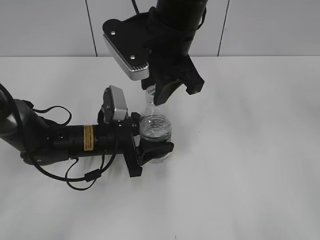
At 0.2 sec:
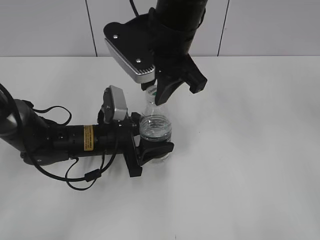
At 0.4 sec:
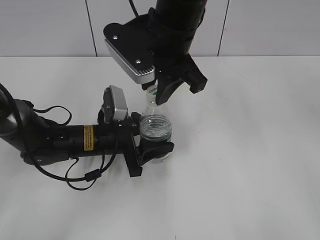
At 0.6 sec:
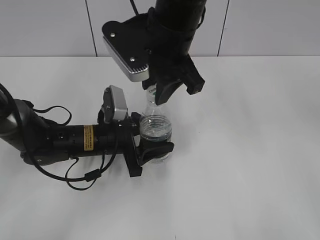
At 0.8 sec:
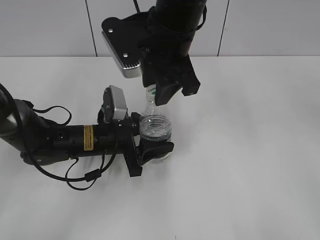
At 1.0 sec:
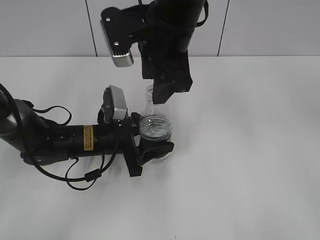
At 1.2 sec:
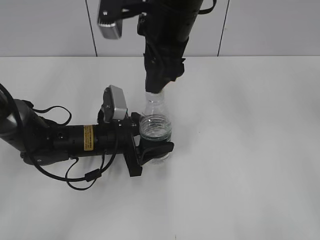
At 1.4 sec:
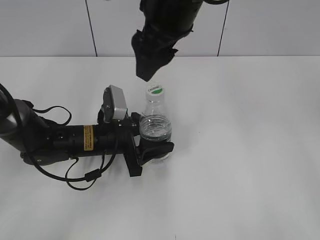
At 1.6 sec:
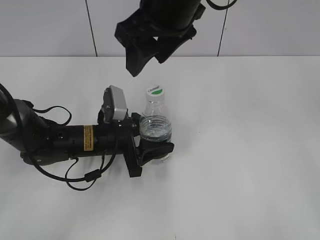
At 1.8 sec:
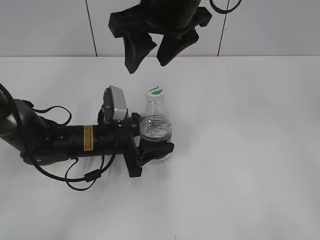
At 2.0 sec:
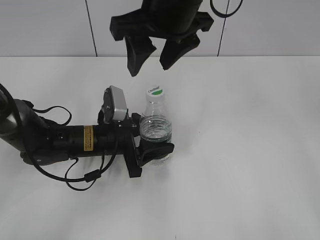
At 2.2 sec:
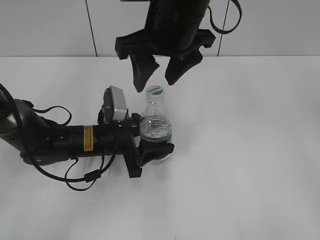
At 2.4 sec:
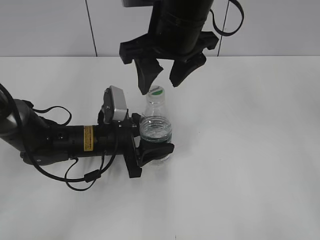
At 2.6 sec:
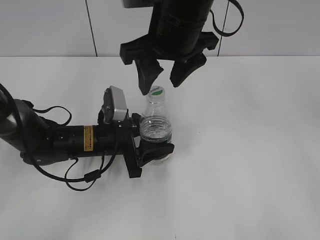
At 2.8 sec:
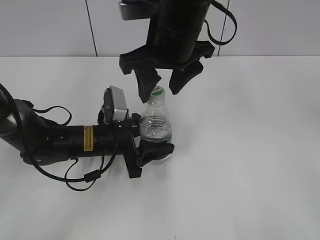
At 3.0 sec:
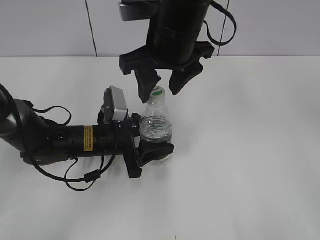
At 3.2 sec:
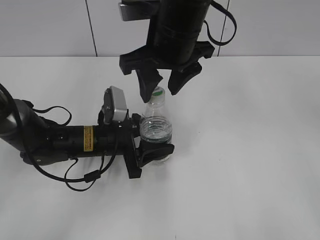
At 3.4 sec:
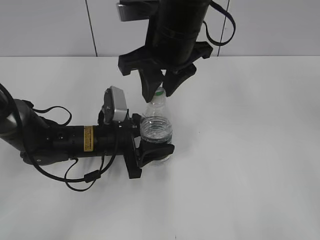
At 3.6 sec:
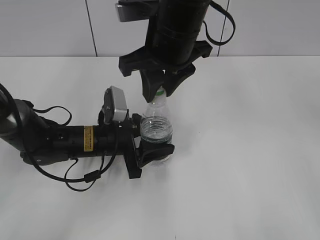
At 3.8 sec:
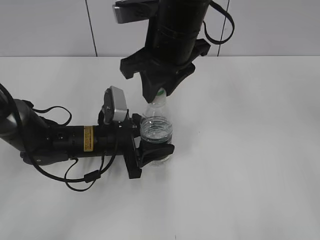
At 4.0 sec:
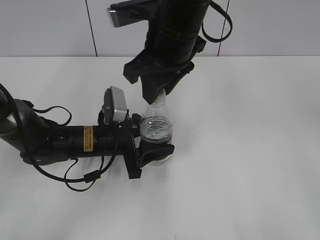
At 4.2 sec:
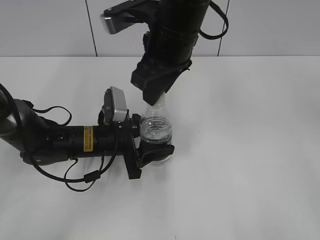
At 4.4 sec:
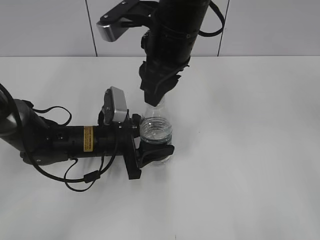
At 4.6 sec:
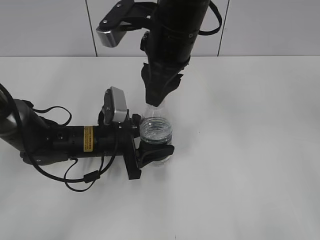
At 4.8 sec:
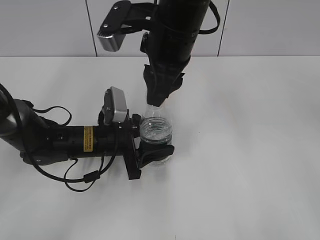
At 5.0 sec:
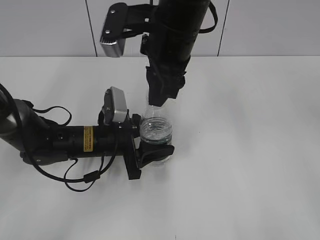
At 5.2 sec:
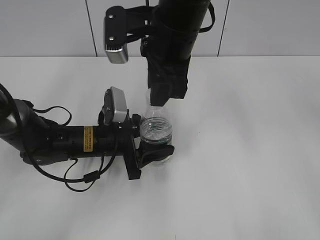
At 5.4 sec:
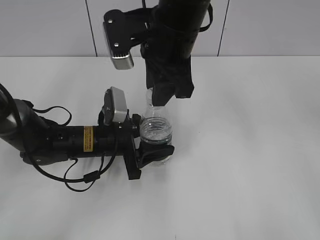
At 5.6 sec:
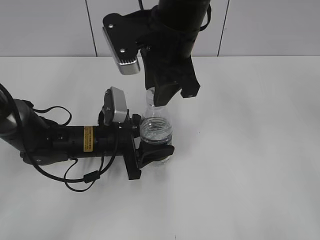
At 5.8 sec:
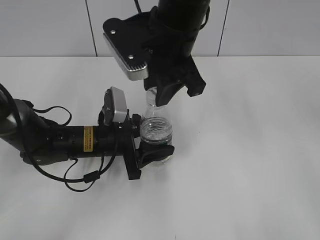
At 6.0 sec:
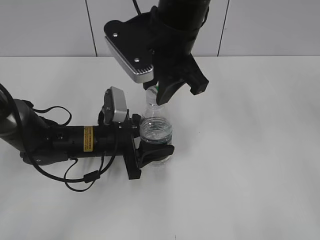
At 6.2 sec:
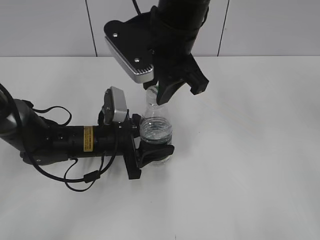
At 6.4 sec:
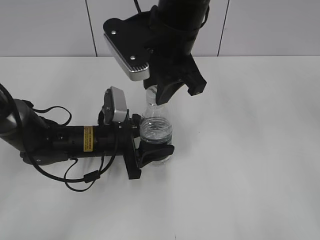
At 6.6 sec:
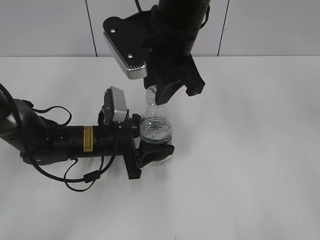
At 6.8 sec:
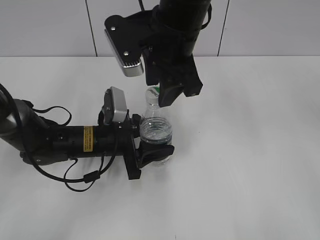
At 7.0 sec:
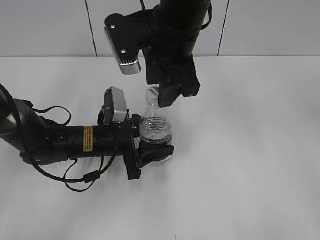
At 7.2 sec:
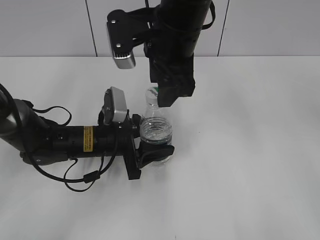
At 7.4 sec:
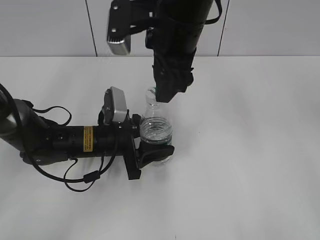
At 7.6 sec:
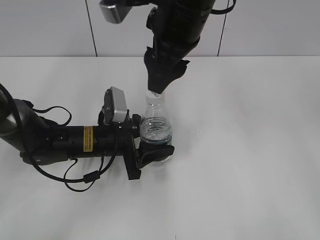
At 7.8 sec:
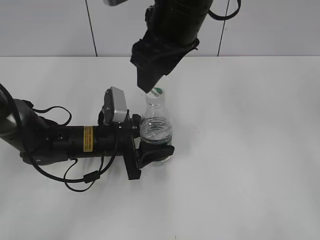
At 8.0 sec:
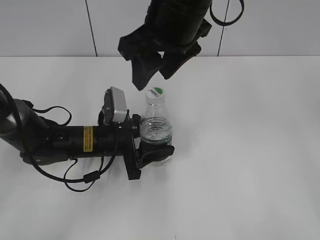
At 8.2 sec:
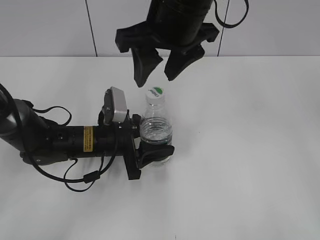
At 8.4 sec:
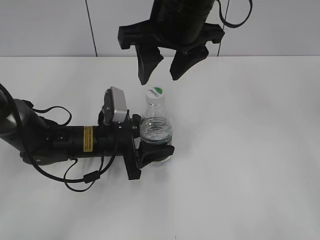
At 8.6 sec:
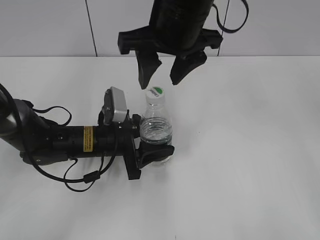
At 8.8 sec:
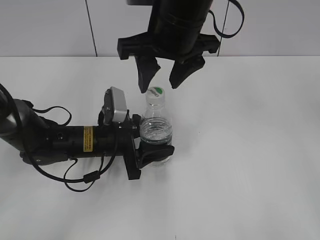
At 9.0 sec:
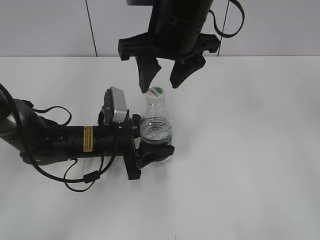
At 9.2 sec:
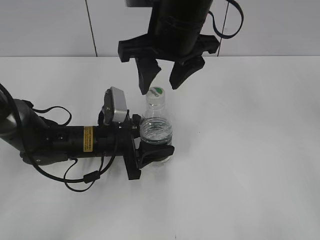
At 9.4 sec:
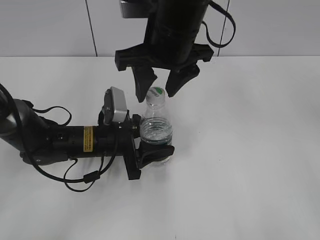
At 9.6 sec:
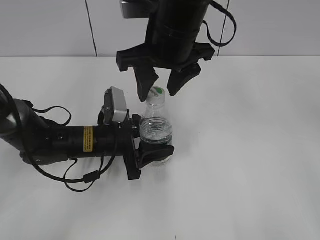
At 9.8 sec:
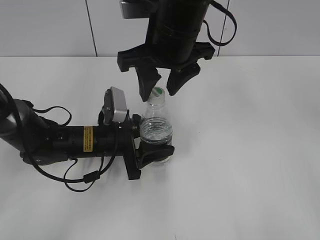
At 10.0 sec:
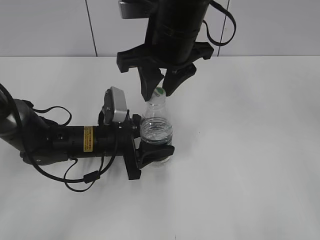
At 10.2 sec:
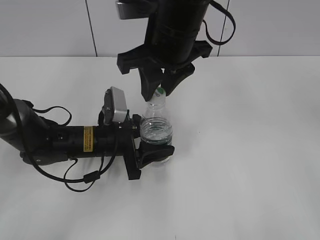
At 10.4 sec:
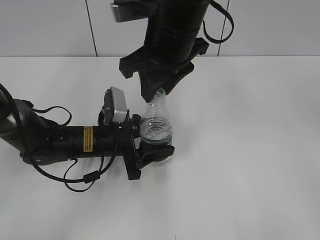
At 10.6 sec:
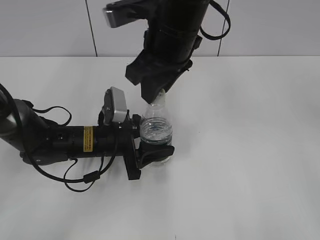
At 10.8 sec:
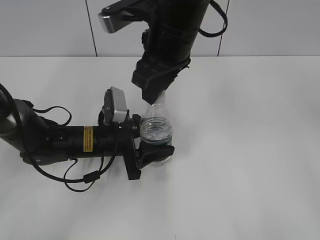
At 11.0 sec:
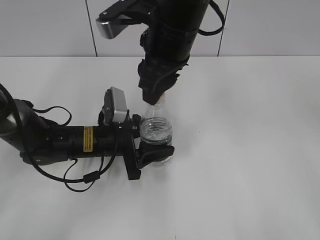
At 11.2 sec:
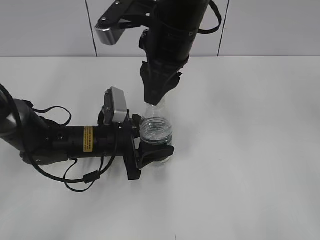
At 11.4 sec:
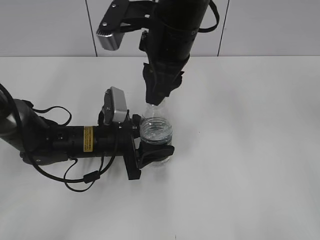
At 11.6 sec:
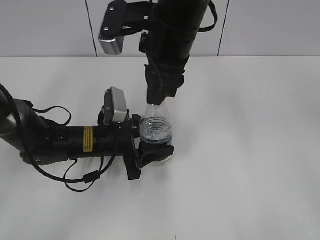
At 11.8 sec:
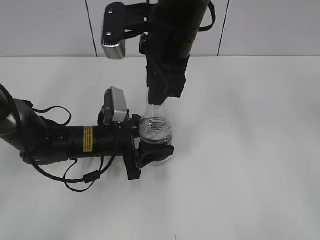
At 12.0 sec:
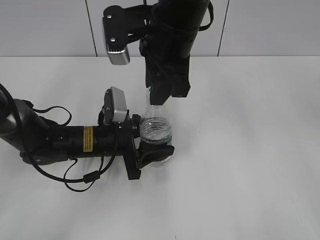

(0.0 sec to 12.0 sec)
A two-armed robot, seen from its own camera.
0.0 sec - 1.6 sec: The right gripper is displaced upward by roughly 5 cm, and opens up.
1.6 sec - 3.0 sec: The right gripper heads downward, covering some 5 cm.
3.0 sec - 4.4 sec: The right gripper closes its fingers.
6.0 sec - 7.6 sec: The right gripper opens its fingers.
9.0 sec - 10.4 sec: The right gripper closes its fingers.

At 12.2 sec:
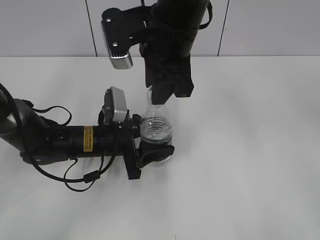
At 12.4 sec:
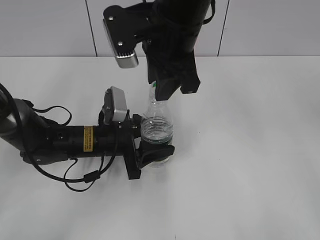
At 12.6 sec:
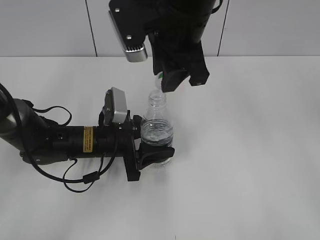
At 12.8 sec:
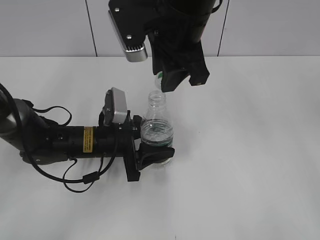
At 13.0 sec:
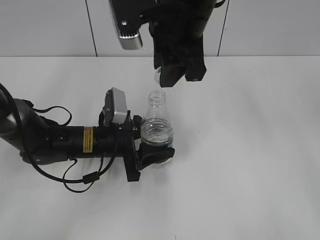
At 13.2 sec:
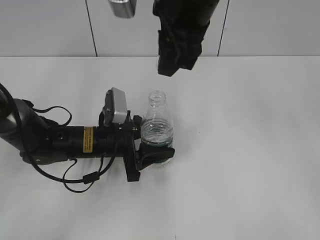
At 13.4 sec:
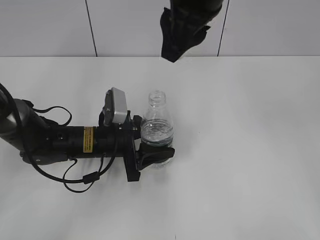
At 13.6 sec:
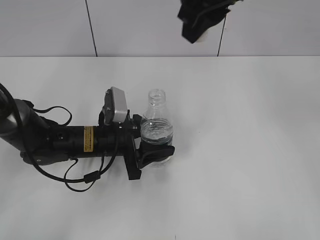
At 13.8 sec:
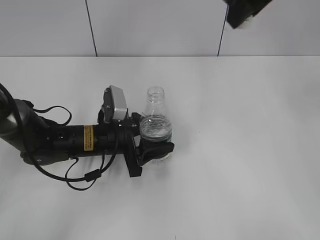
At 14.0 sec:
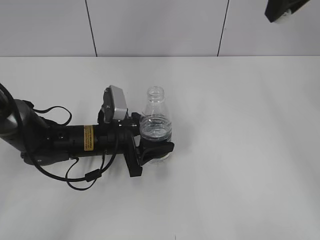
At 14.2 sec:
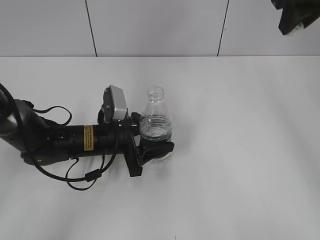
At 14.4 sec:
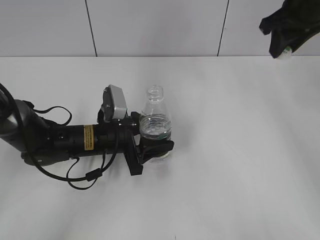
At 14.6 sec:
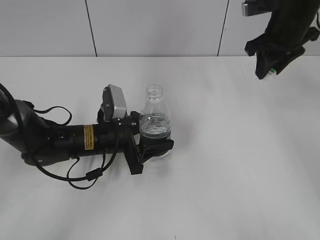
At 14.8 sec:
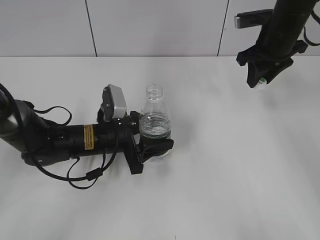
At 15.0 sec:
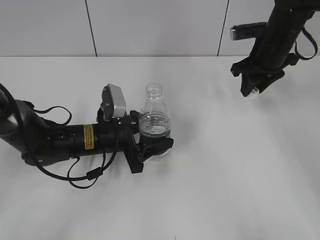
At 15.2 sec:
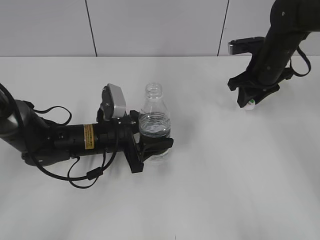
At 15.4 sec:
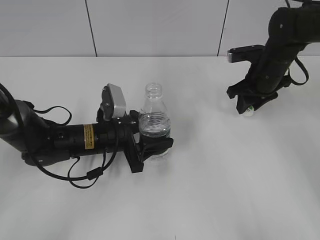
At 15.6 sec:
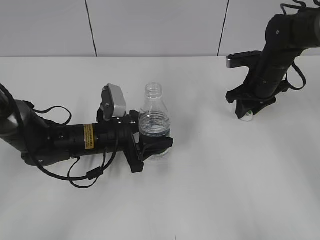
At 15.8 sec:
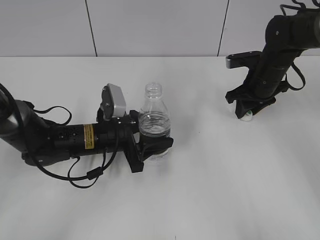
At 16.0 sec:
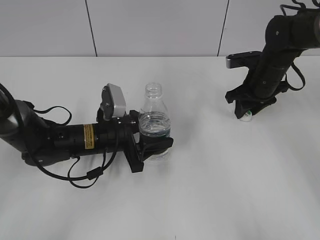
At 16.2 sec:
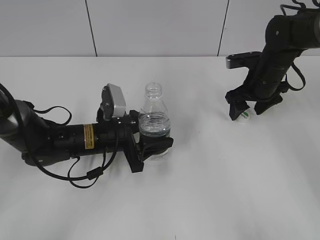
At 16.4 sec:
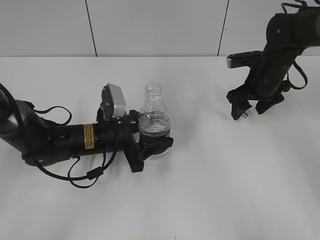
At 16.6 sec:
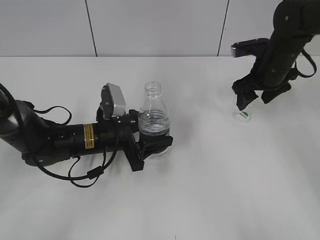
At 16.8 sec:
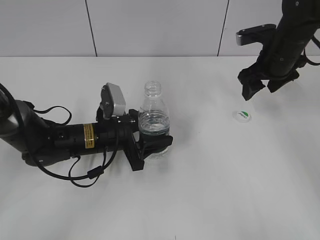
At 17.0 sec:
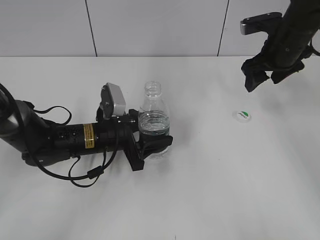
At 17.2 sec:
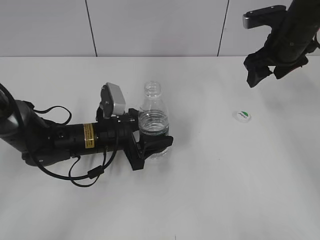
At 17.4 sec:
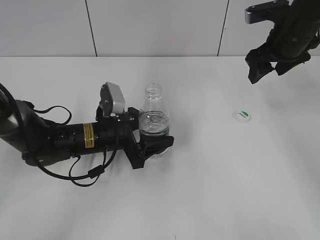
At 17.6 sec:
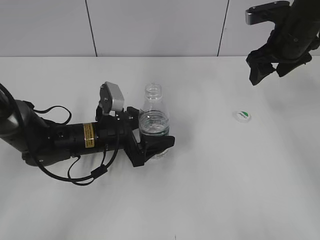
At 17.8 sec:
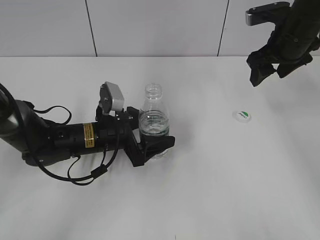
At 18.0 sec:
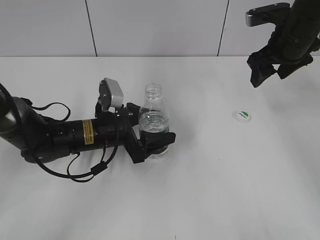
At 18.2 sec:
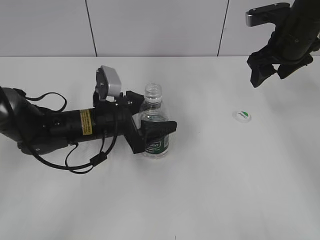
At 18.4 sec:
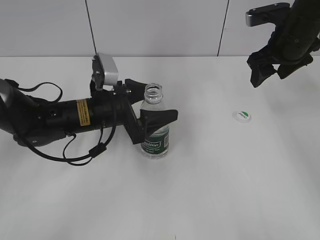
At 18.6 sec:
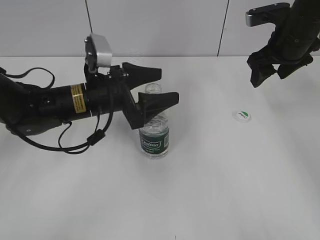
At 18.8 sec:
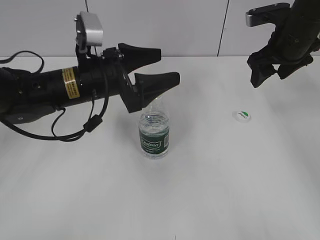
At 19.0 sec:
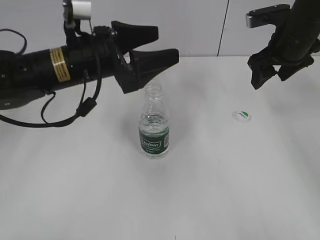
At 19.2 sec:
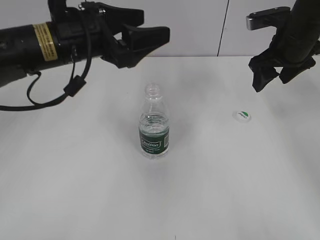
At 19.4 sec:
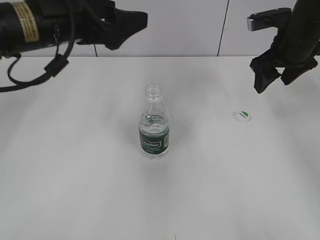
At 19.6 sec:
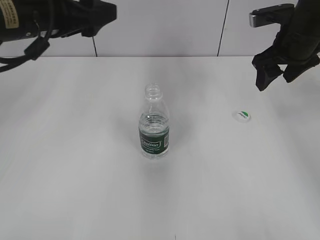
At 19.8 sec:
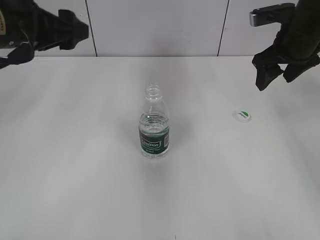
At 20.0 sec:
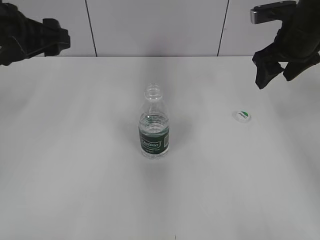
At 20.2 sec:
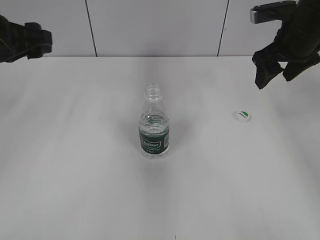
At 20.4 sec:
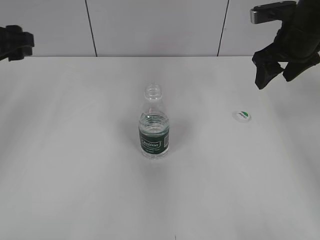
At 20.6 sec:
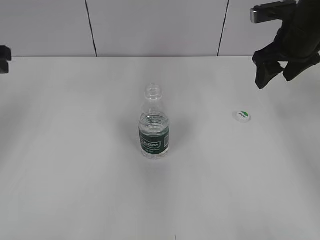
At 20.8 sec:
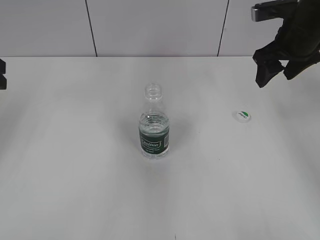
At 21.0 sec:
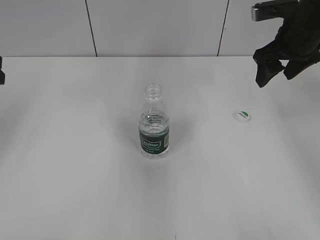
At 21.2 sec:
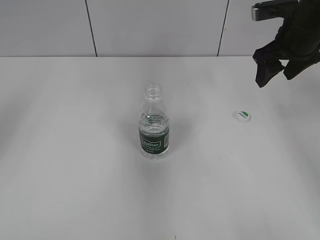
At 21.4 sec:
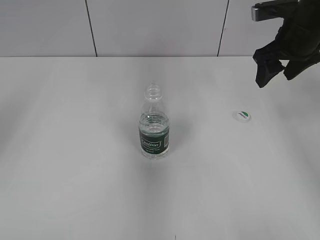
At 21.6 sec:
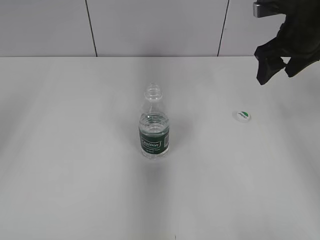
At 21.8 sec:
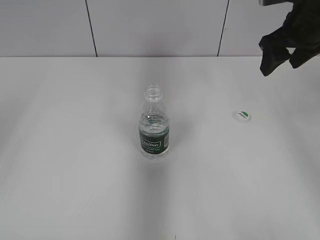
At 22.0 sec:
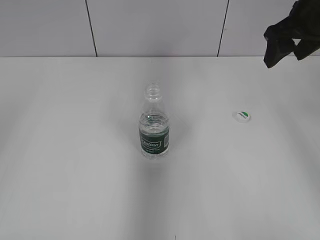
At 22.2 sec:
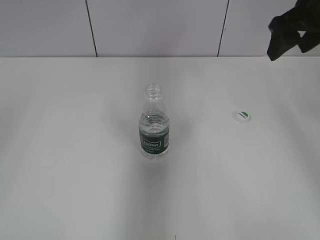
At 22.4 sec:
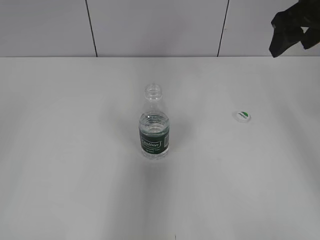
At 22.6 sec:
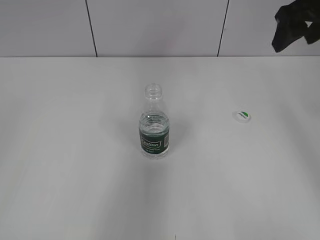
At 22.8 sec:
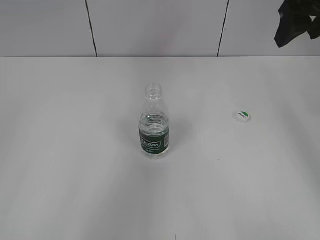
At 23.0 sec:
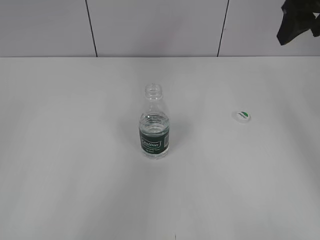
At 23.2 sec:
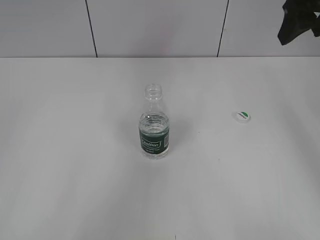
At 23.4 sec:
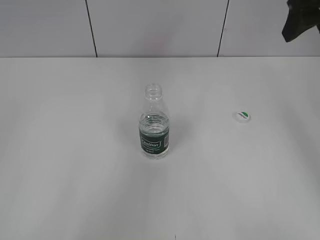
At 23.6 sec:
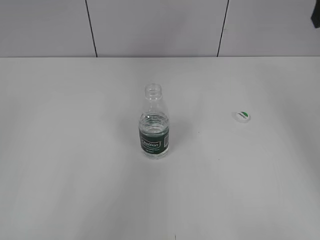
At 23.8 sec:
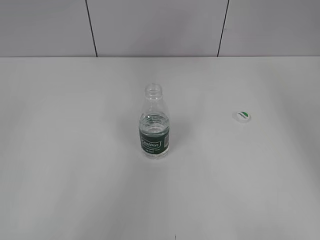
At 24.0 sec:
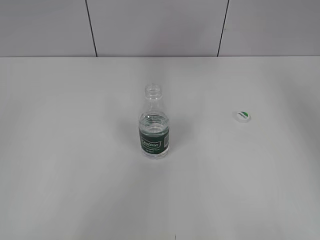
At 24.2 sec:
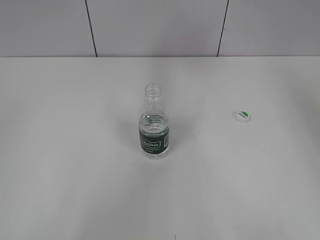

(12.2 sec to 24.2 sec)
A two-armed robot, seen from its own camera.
Step, 13.0 sec - 16.6 sec: Place the bottle cap on the table with the right gripper.
Step, 16.8 sec - 18.2 sec: Place the bottle on the table with the left gripper.
12.2 sec - 13.8 sec: The right gripper moves to the right and upward, approximately 15 cm.
13.8 sec - 15.2 sec: The right gripper is displaced downward, forward and to the right by about 25 cm.
15.2 sec - 16.6 sec: The right gripper opens up.
16.6 sec - 18.2 sec: The right gripper travels upward by approximately 10 cm. The left gripper opens.
18.2 sec - 19.8 sec: The left gripper heads upward and to the left, covering roughly 20 cm.
19.8 sec - 21.2 sec: The left gripper travels to the left by about 10 cm.
21.2 sec - 22.6 sec: The right gripper travels upward by roughly 10 cm.
22.6 sec - 24.2 sec: The right gripper moves to the right, about 10 cm.
